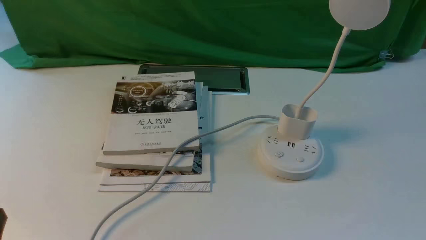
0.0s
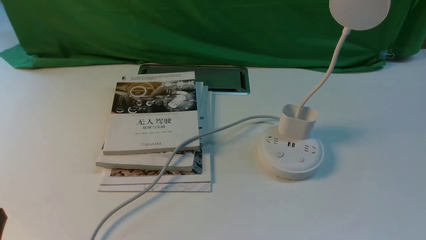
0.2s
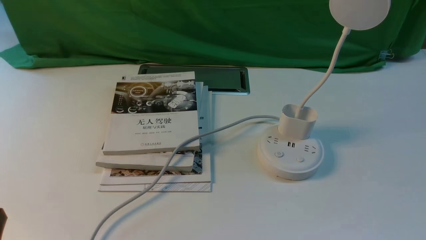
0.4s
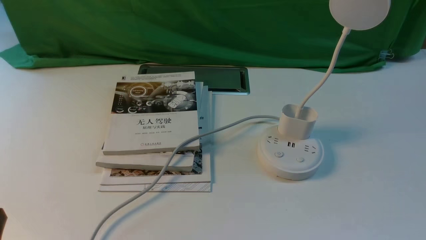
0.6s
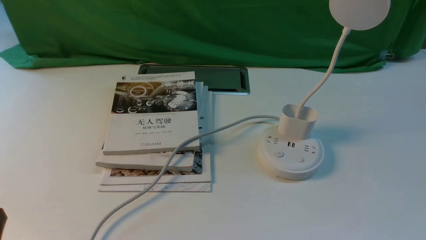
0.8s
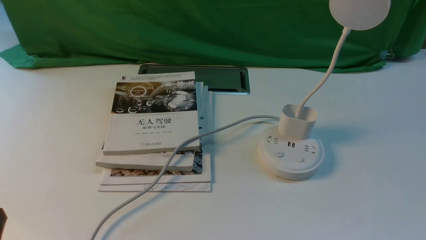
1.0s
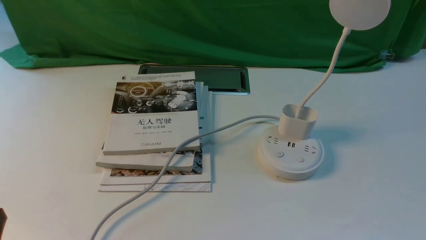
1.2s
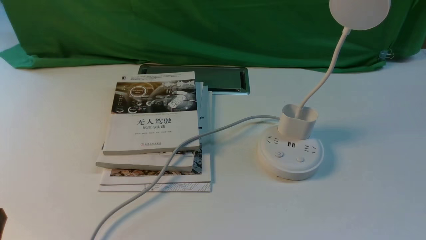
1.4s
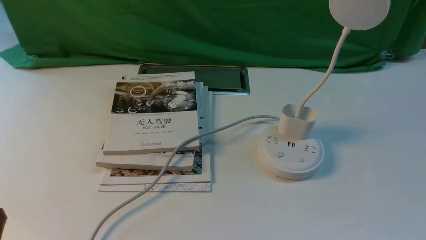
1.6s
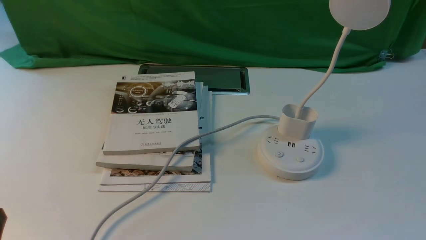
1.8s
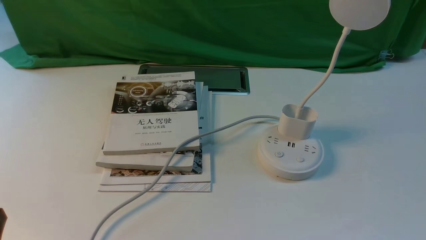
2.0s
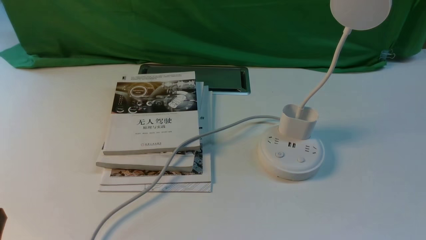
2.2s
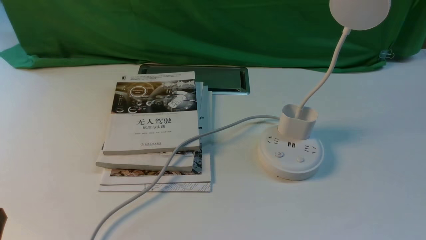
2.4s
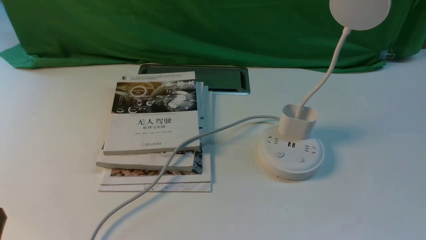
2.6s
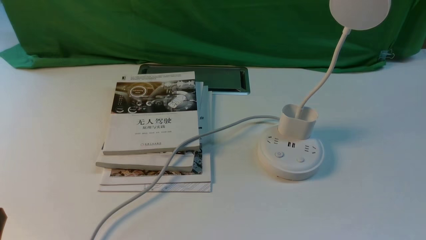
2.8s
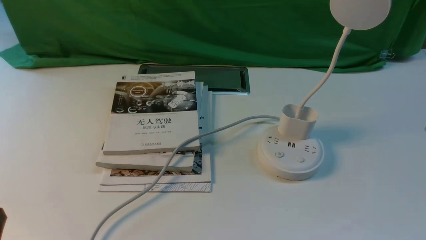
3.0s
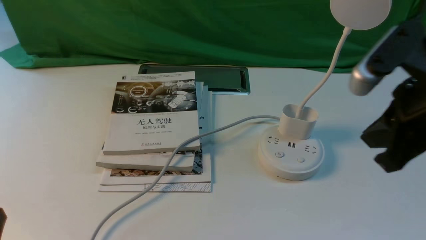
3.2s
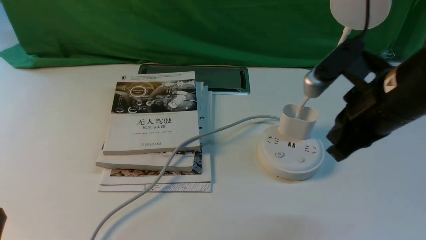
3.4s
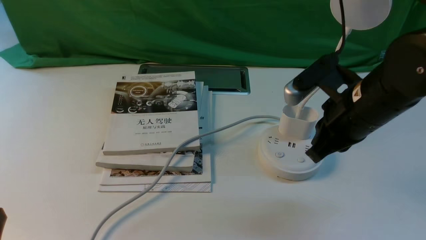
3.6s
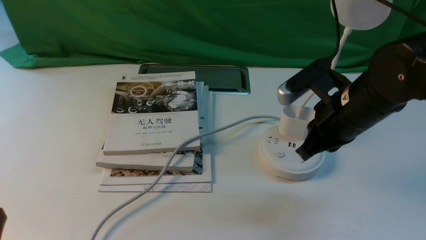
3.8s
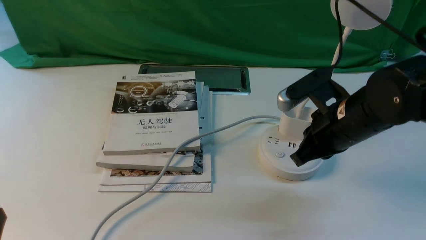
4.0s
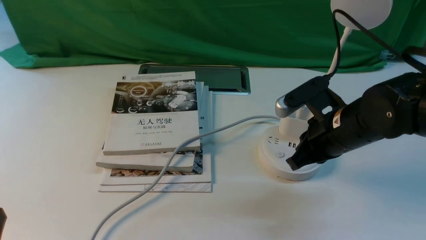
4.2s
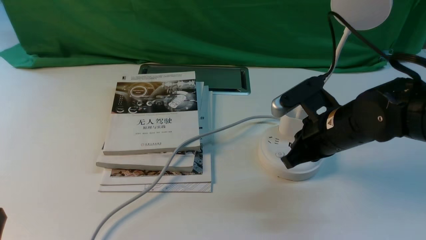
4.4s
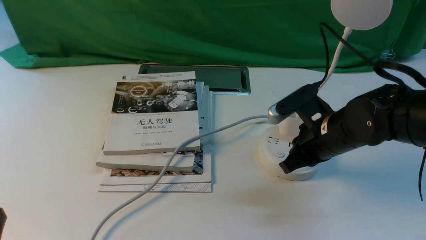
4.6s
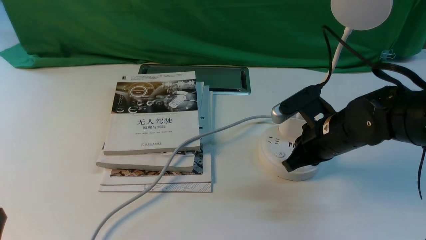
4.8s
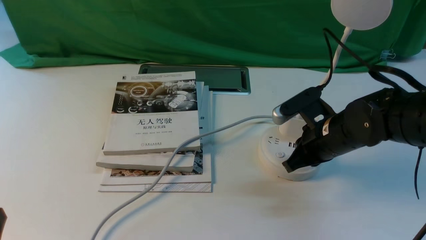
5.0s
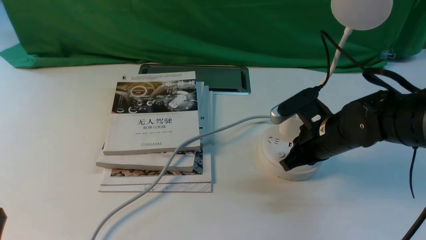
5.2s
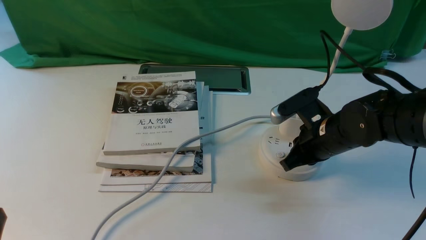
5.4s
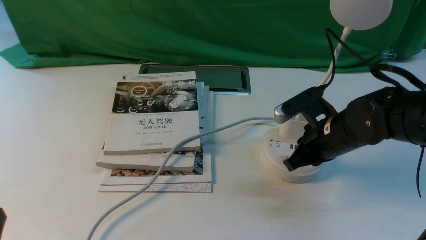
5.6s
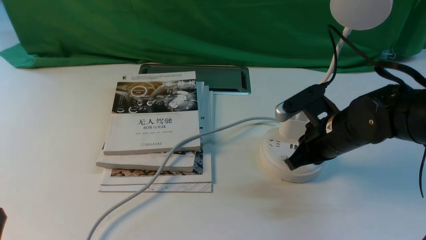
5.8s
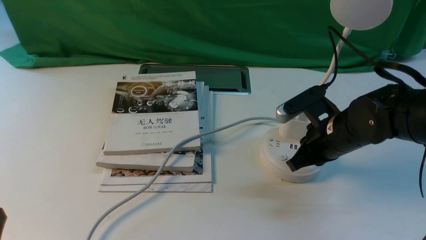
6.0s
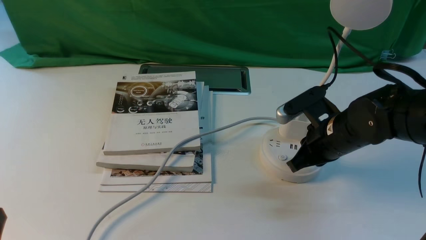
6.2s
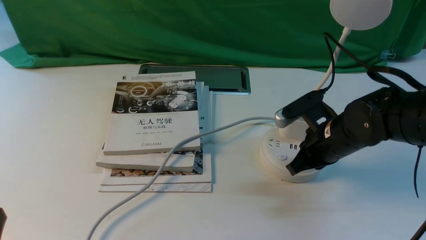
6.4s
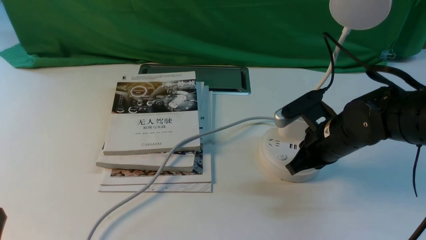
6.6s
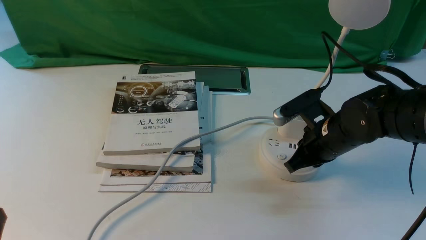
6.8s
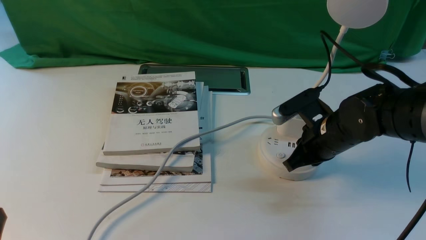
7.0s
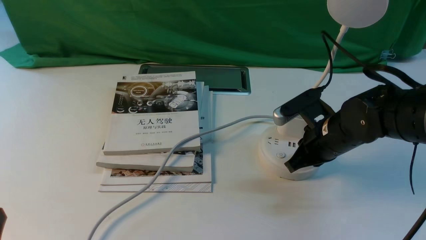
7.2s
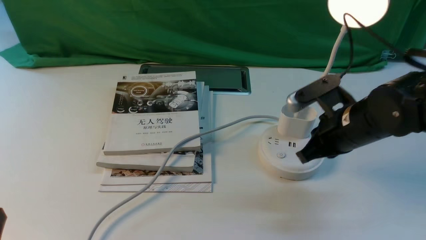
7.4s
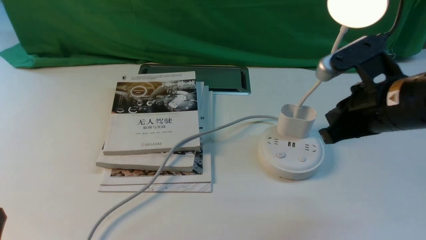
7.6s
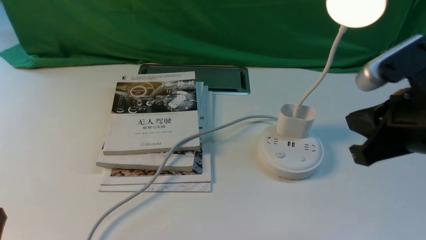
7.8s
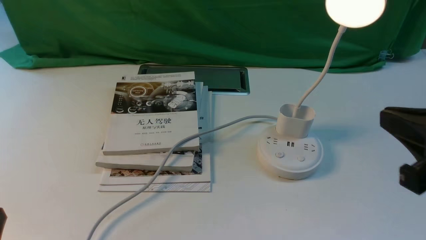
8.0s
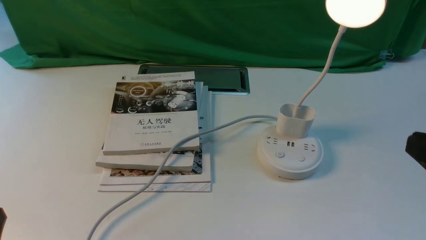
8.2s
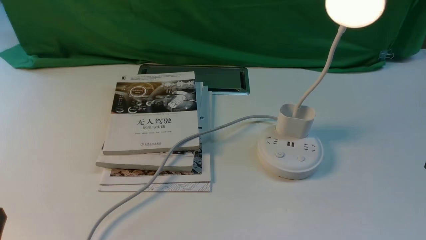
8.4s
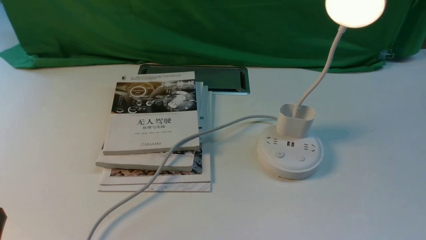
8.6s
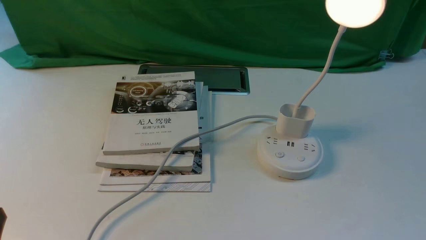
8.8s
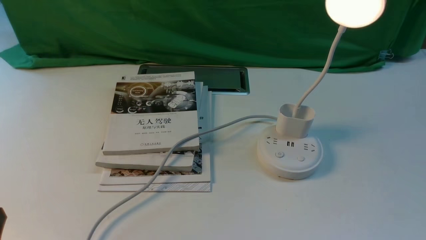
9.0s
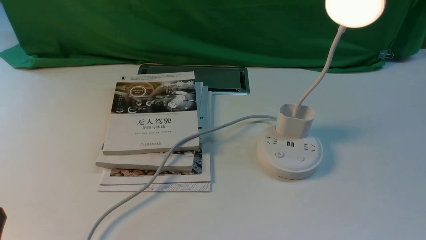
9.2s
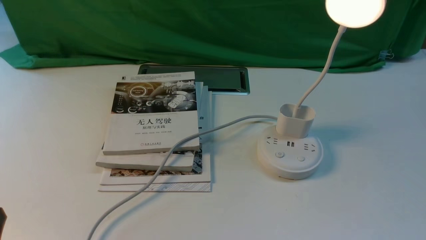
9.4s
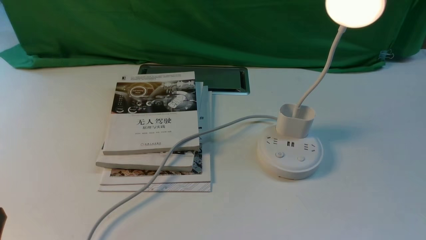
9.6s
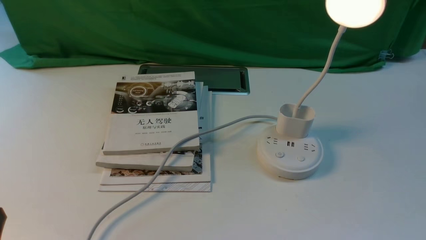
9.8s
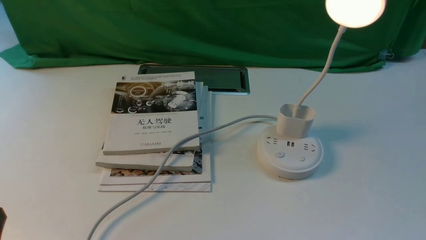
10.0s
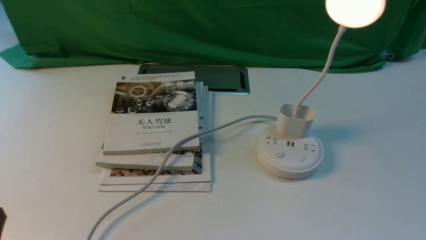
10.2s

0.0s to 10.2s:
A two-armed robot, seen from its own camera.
Step, 0.0s to 7.4s: use the right arm to press the button switch on the lamp holder.
3.0s to 4.4s: The right gripper is displaced downward, forward and to the left by some 25 cm.
4.4s to 7.2s: There are only small adjustments of the grippers.
7.2s to 8.8s: The right gripper heads backward and to the right, covering approximately 30 cm.

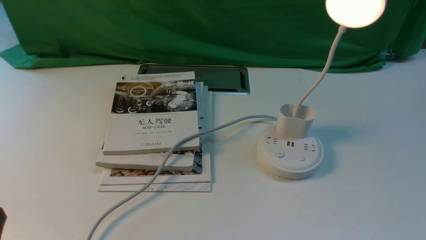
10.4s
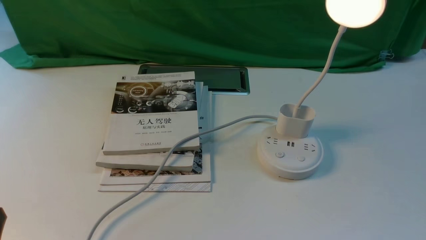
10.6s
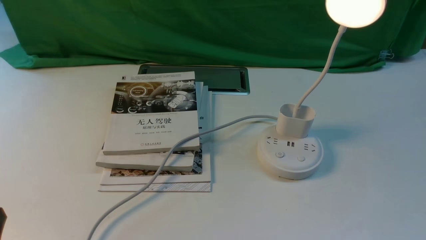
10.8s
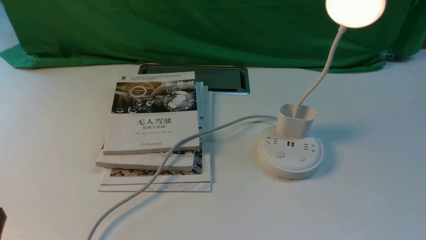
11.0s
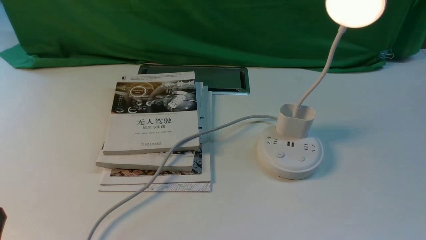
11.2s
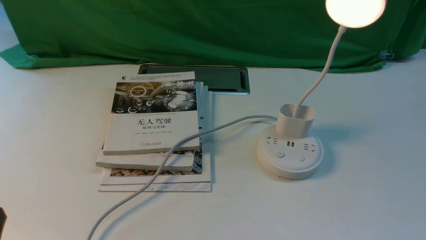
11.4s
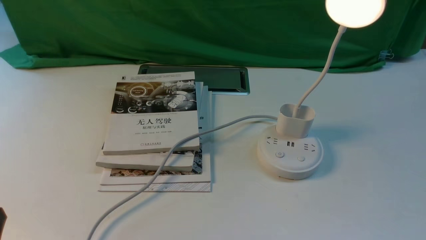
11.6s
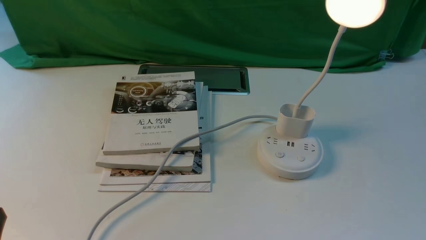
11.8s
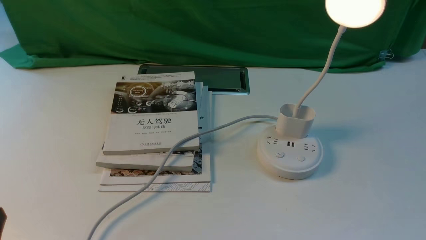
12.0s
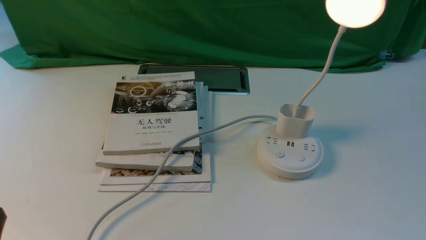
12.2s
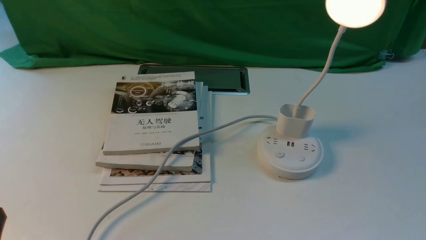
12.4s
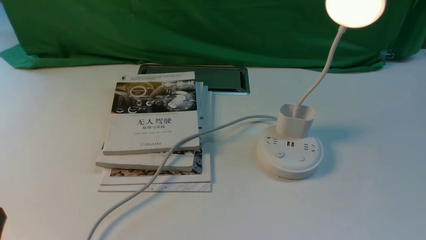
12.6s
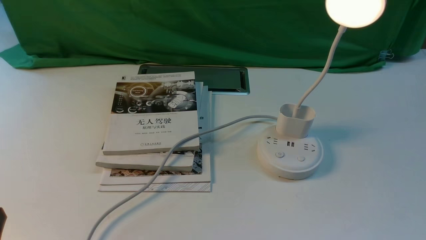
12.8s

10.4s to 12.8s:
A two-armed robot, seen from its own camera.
10.4s to 12.8s: Neither gripper changes place.
